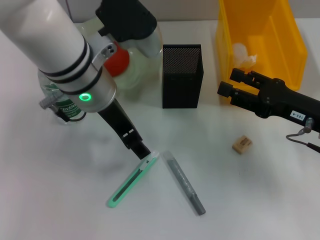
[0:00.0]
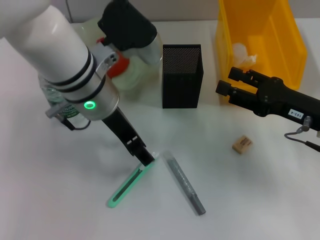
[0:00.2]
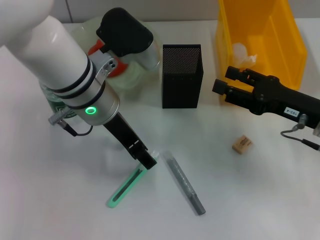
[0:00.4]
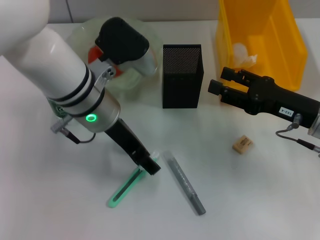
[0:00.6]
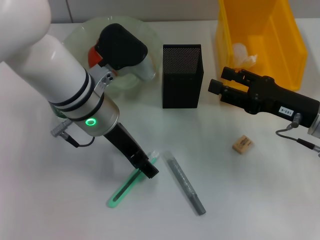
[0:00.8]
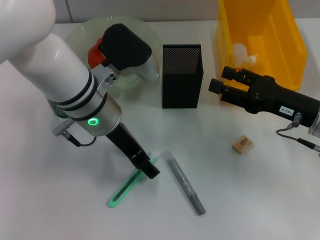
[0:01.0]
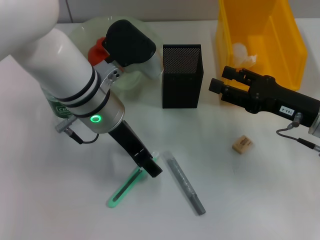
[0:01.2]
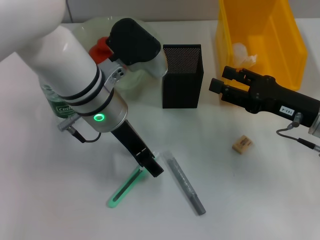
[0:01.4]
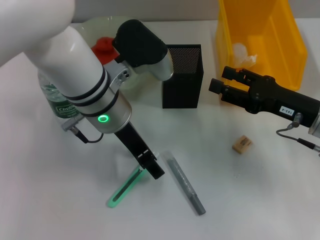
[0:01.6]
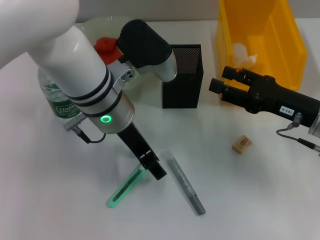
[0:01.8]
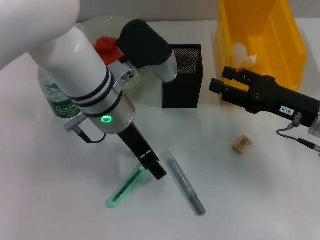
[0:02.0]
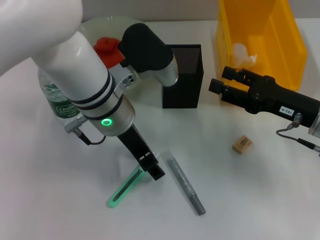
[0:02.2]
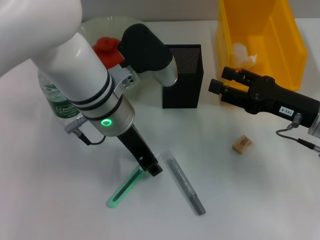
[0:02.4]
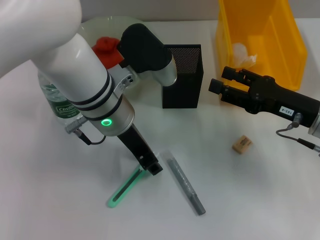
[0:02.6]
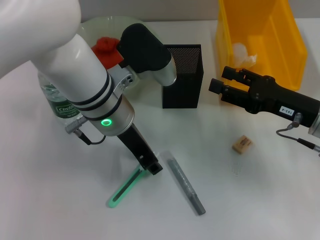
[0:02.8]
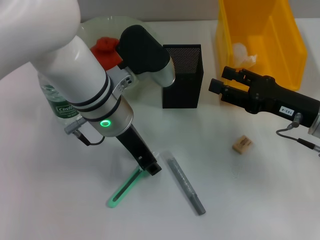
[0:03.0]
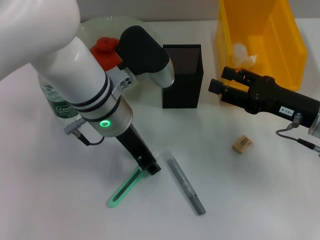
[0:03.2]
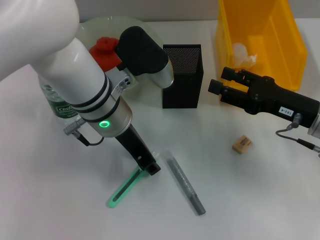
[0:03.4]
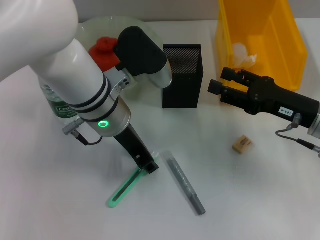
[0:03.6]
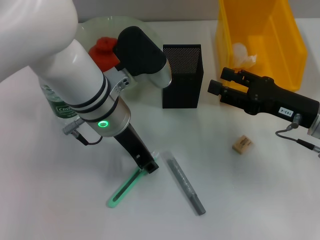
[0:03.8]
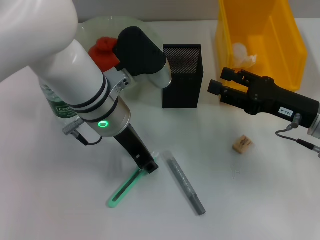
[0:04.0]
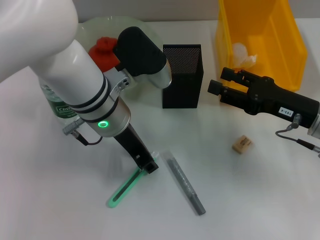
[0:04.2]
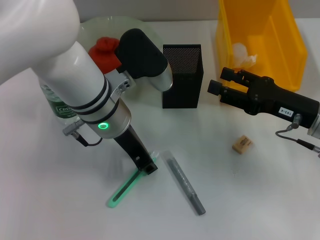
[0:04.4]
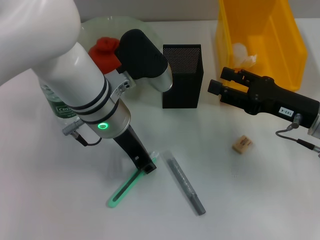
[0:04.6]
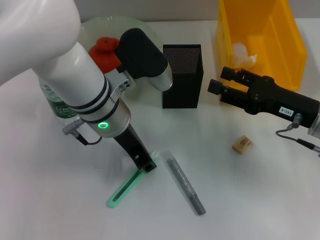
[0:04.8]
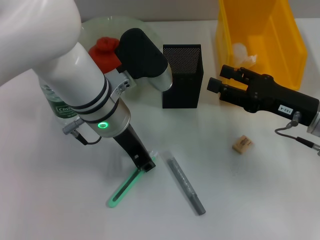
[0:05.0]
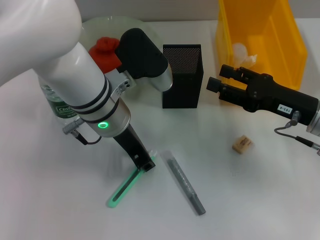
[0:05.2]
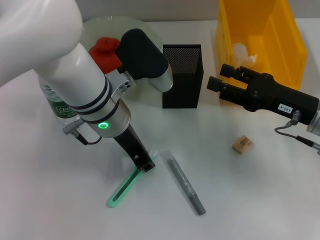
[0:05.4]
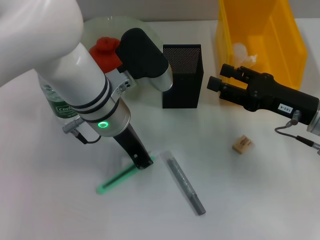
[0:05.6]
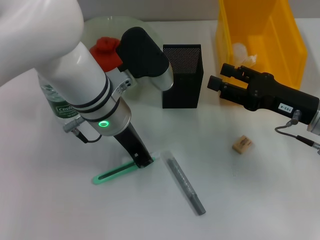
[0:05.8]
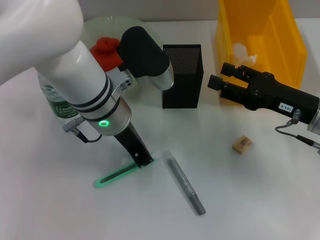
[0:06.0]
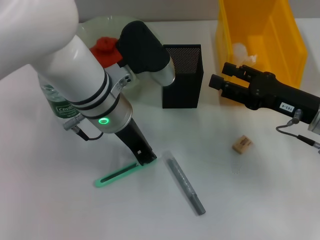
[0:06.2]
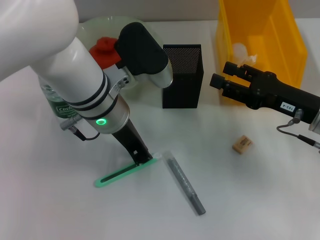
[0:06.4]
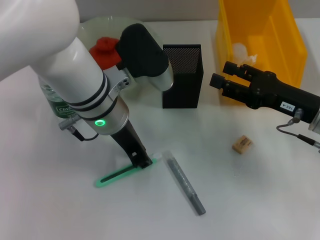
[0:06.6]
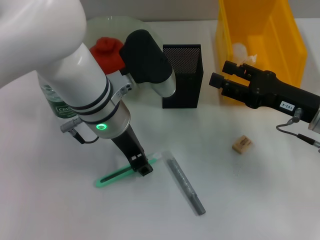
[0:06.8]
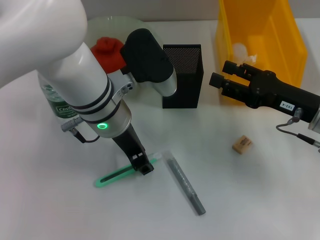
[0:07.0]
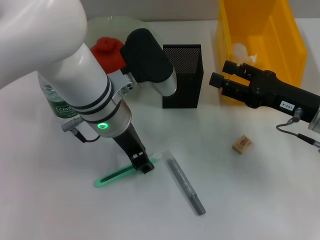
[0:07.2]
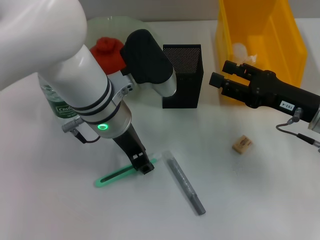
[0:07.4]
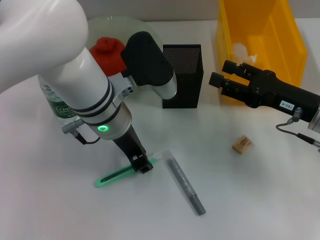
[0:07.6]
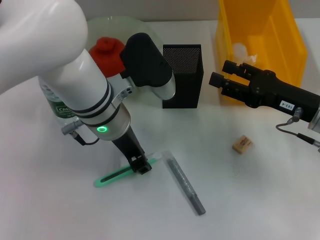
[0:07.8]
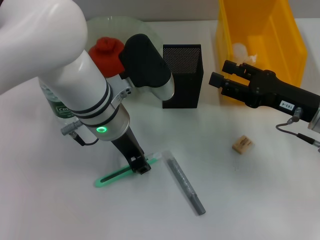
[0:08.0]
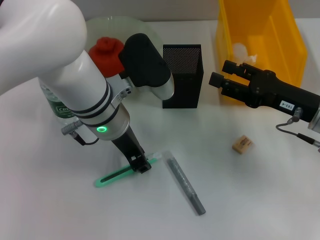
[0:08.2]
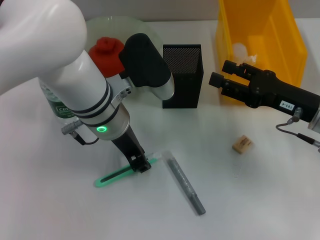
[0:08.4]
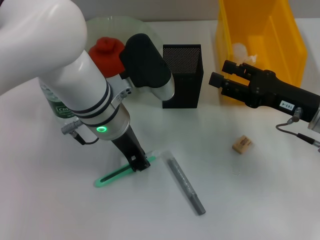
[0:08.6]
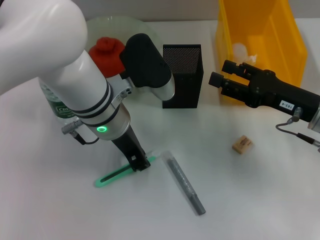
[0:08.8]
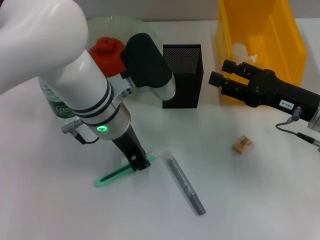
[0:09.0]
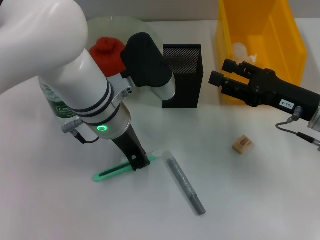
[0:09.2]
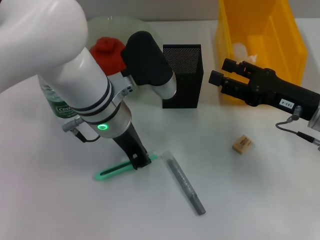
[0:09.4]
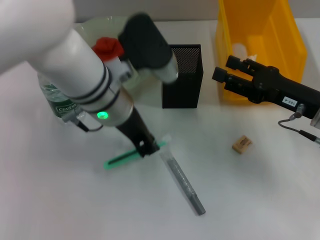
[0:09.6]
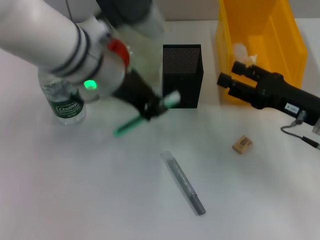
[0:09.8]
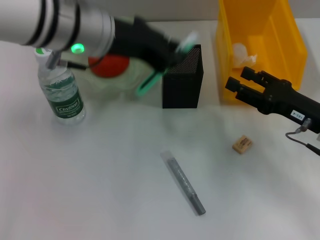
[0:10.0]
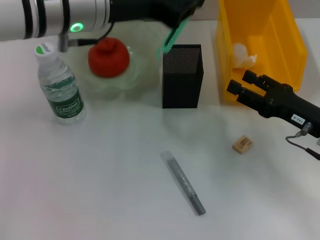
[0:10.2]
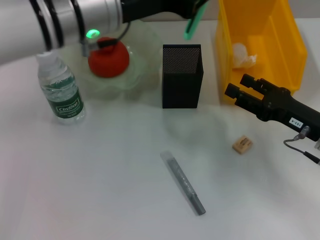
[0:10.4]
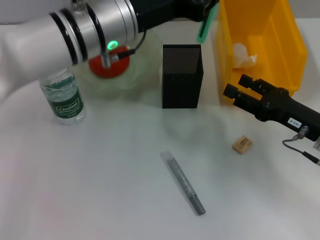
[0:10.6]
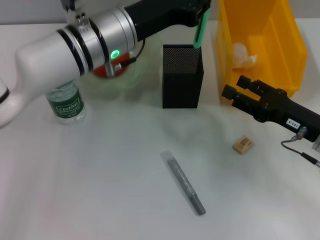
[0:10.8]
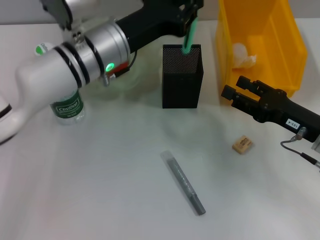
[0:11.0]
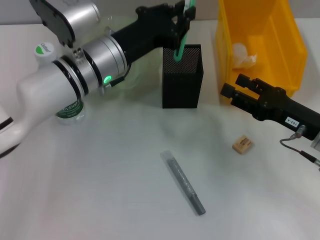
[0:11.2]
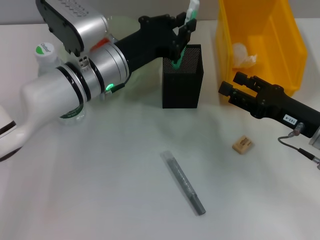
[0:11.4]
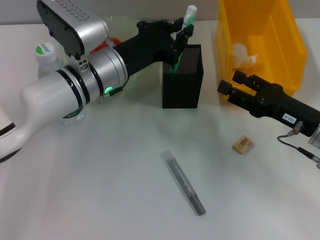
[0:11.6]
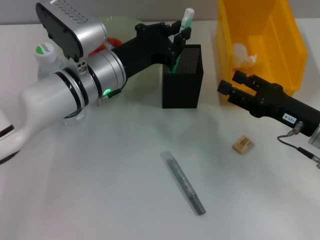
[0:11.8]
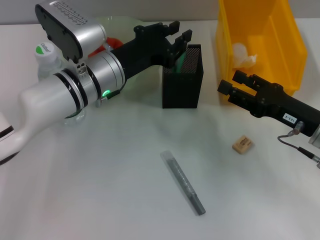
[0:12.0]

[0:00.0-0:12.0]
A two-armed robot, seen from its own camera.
Step, 0:00.0 to 0:09.2: Grab the blue utility knife with the left hand.
0:00.0 to 0:01.6: There are only small adjustments of the grippers.
0:01.6 to 0:03.0: The left gripper closes.
0:03.0 to 0:04.4: The two grippers keep their place.
0:04.4 to 0:06.0: The left gripper closes its fingers.
0:06.0 to 0:07.6: The left gripper opens.
0:07.6 to 0:09.0: The two grippers keep their place.
0:09.0 to 0:10.4: The left gripper heads upward, covering some 10 cm.
0:10.4 to 0:12.0: The left gripper shifts roughly 10 cm downward.

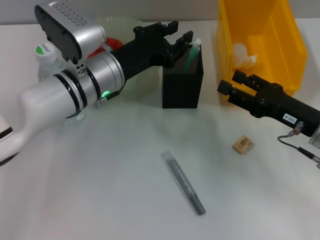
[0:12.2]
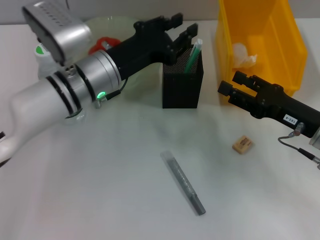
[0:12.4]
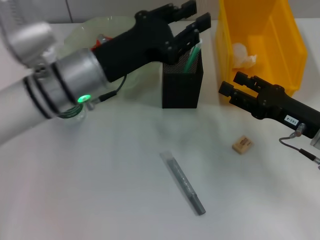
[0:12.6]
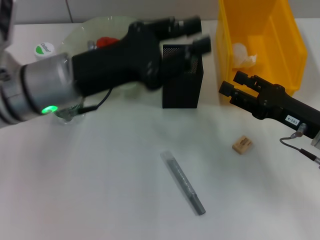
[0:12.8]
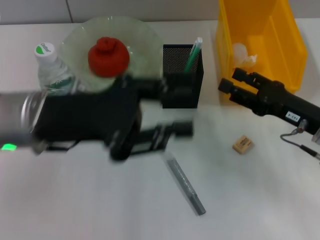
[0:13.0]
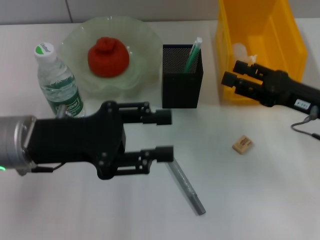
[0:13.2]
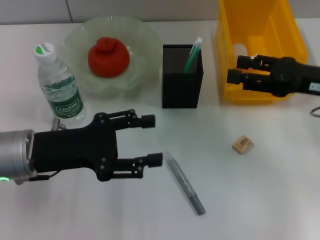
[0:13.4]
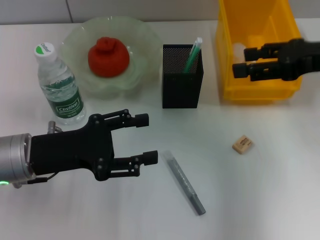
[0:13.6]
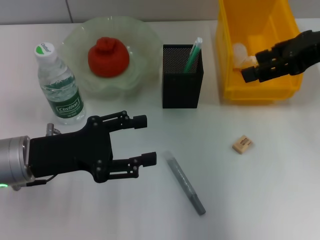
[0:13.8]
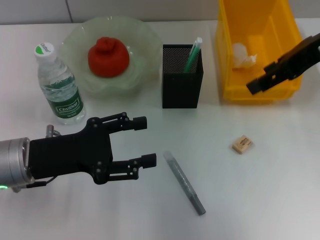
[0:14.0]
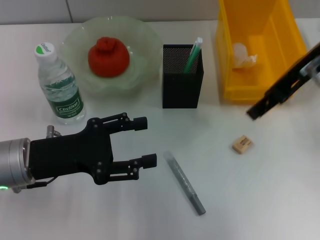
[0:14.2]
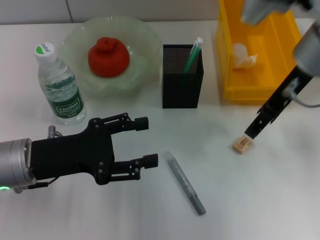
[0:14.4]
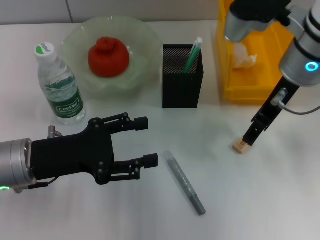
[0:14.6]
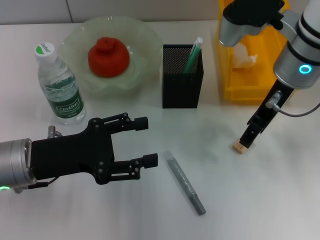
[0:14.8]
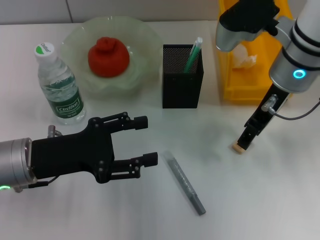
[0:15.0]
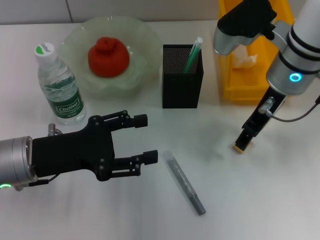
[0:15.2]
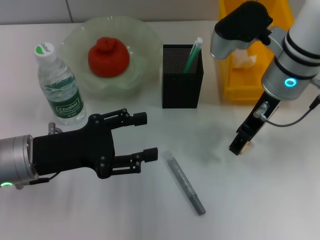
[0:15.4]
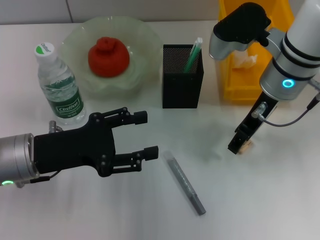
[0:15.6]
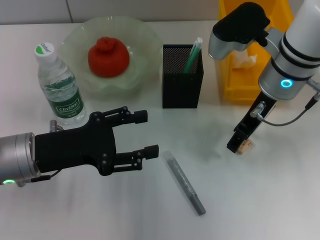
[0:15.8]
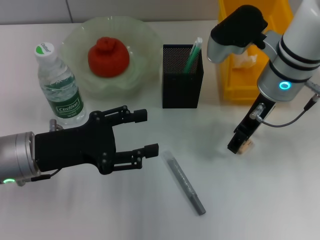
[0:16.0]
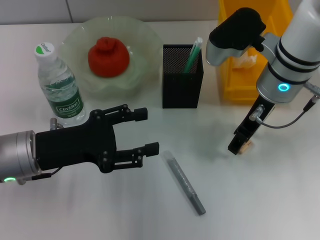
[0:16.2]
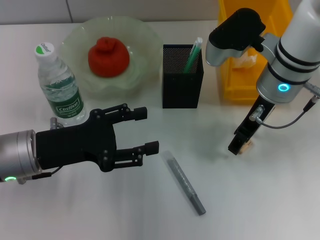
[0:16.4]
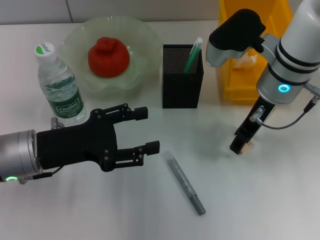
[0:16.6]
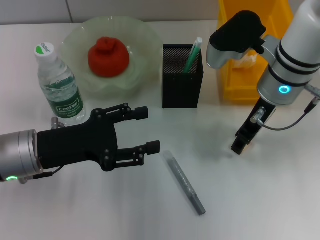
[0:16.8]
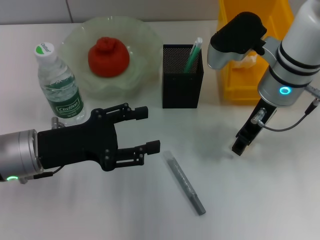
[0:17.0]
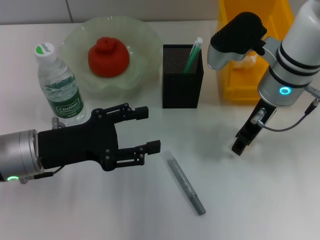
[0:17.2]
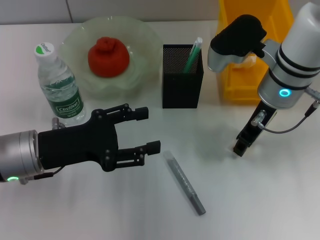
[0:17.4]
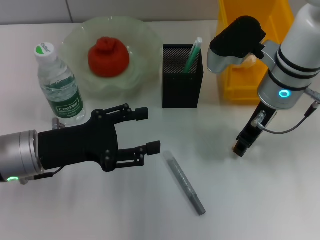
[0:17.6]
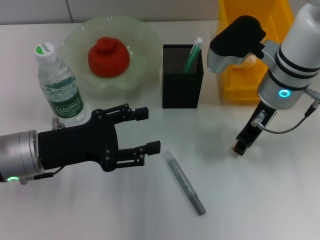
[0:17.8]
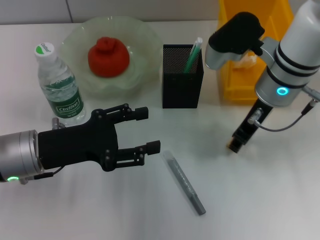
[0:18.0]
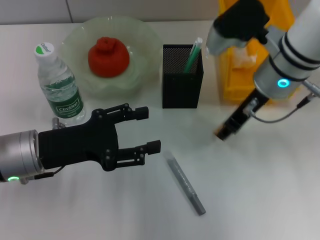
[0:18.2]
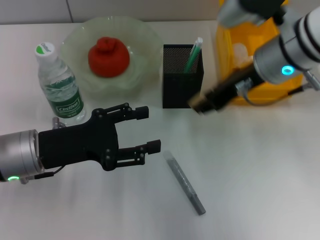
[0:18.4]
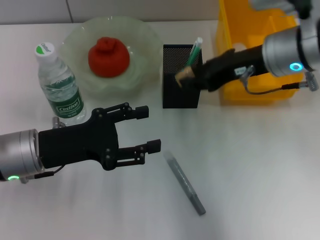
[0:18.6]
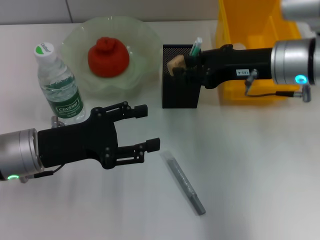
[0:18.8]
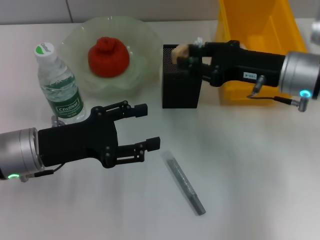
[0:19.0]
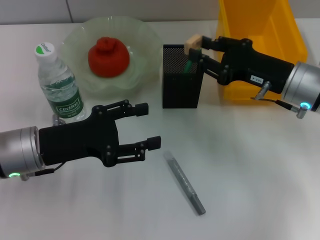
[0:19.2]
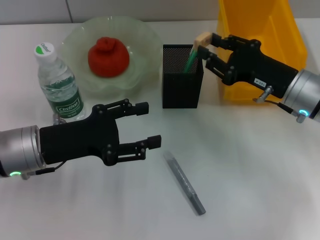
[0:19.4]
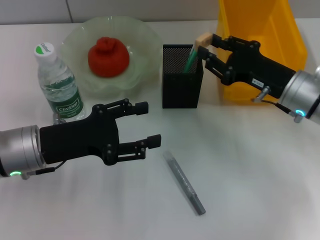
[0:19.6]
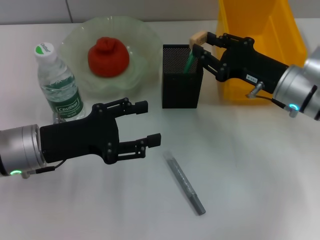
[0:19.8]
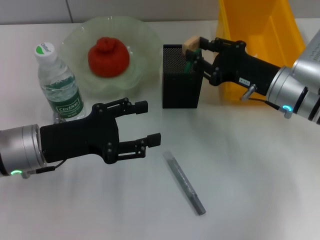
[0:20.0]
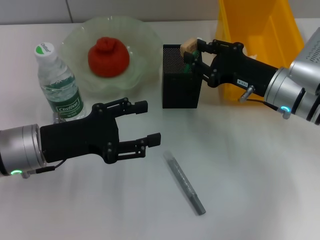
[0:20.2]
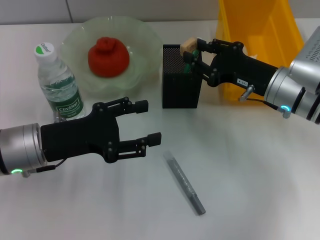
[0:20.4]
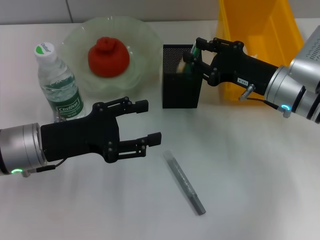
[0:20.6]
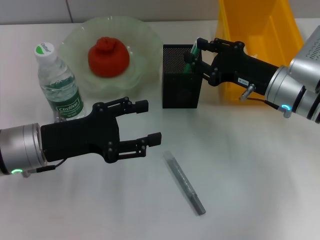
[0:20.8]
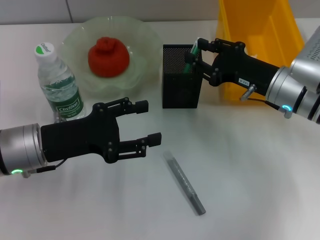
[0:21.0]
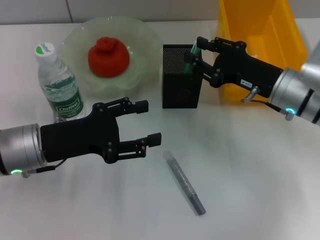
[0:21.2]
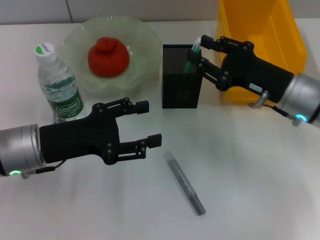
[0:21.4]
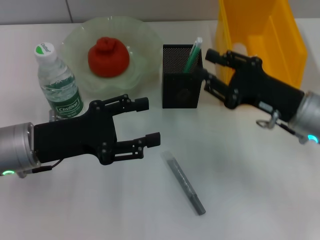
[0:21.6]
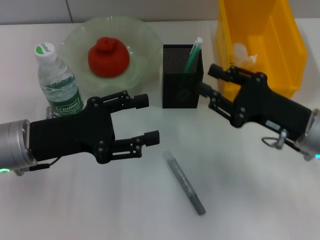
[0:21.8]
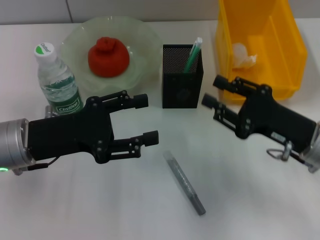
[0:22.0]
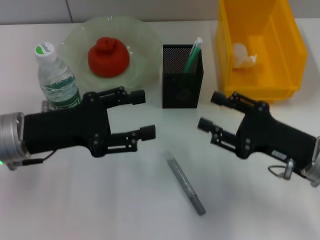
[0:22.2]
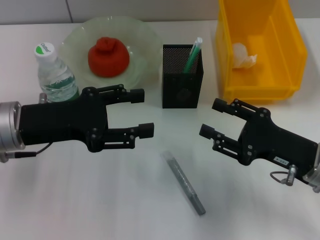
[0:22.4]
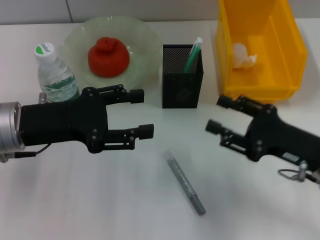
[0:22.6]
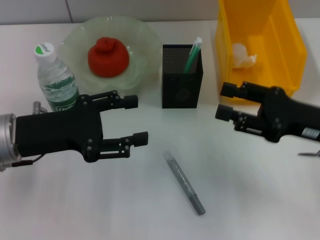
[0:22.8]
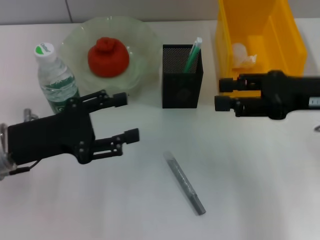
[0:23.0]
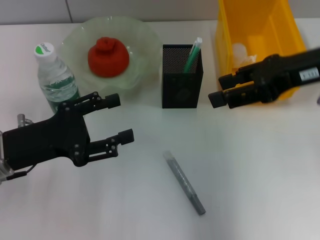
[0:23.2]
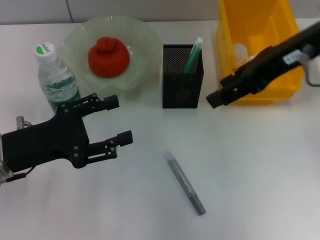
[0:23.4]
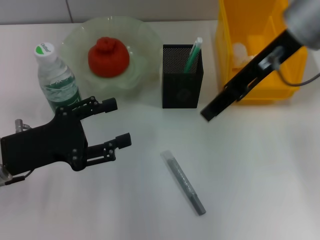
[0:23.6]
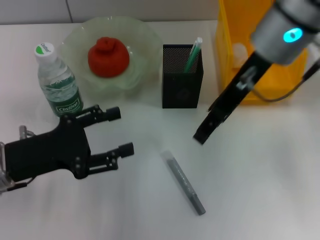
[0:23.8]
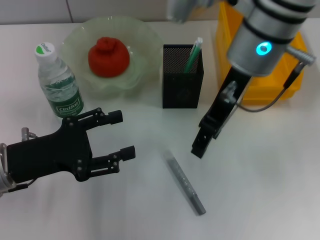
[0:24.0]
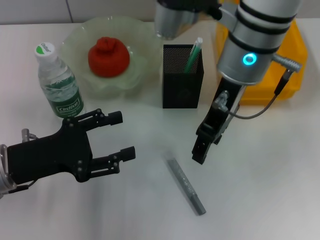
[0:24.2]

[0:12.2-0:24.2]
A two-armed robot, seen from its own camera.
Step, 0:12.6 to 0:17.4: Grab the eraser with the right hand.
Step, 0:17.6 to 0:21.0: Put the eraser into the pen holder with the right hand.
0:12.2 to 0:13.8: The right gripper goes approximately 20 cm upward, while the left gripper is displaced backward and to the left by some 15 cm, and opens up.
0:13.8 to 0:15.2: The right gripper is displaced to the left and downward by approximately 15 cm.
0:15.2 to 0:16.6: The grippers move only a little.
0:16.6 to 0:18.2: The right gripper closes up.
0:18.2 to 0:19.8: The right gripper heads downward and to the right, covering roughly 10 cm.
0:19.8 to 0:21.2: Neither gripper changes place.
0:21.2 to 0:22.6: The right gripper goes roughly 10 cm backward.
0:22.6 to 0:24.2: The right gripper shifts roughly 25 cm to the left, upward and forward, while the left gripper moves about 5 cm.
